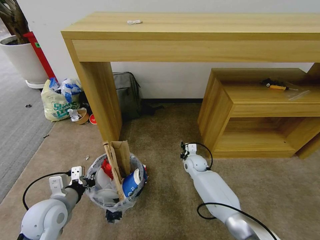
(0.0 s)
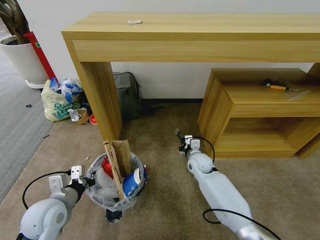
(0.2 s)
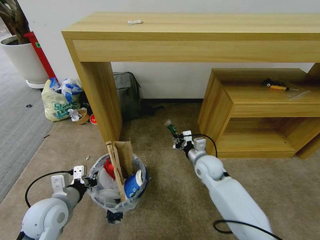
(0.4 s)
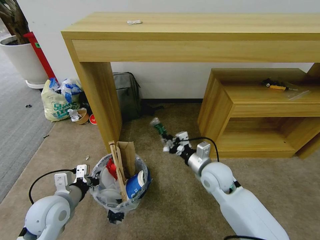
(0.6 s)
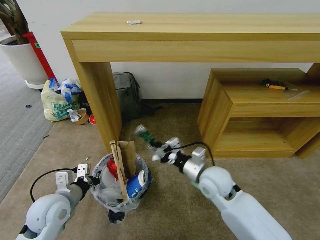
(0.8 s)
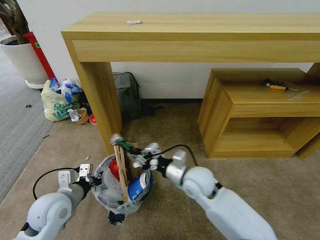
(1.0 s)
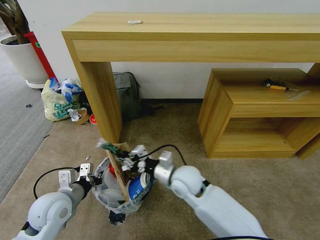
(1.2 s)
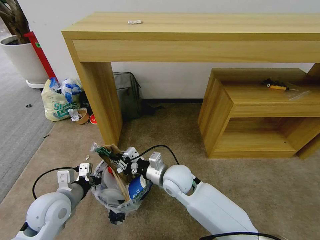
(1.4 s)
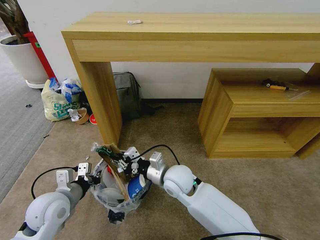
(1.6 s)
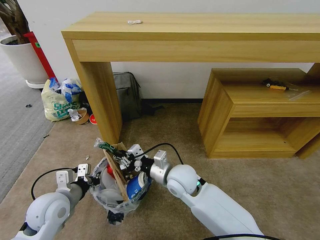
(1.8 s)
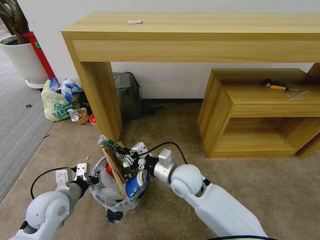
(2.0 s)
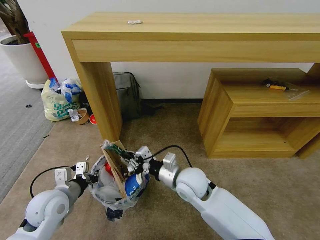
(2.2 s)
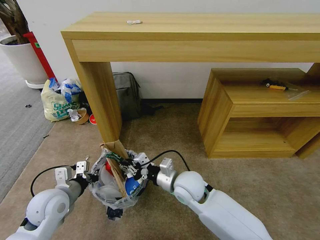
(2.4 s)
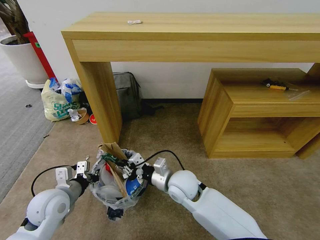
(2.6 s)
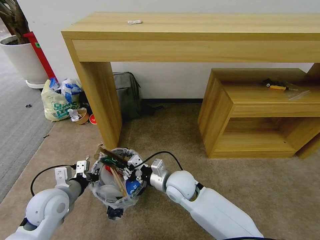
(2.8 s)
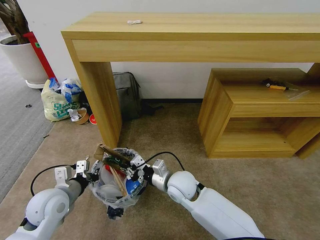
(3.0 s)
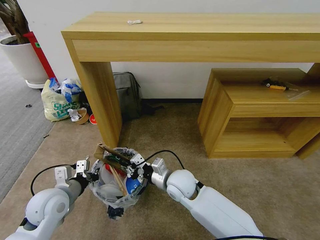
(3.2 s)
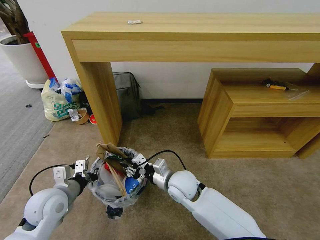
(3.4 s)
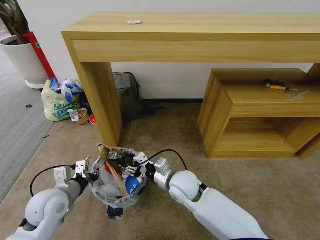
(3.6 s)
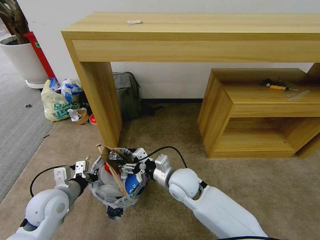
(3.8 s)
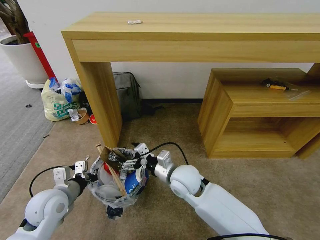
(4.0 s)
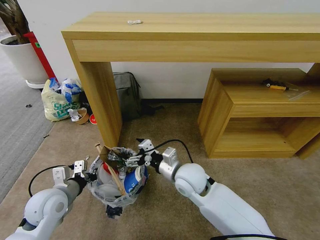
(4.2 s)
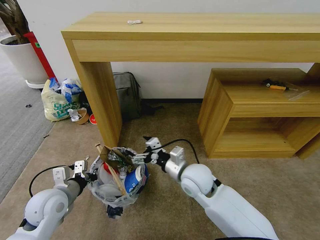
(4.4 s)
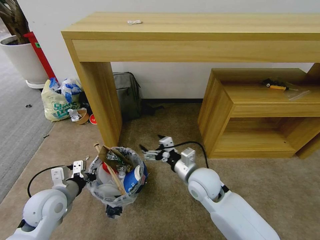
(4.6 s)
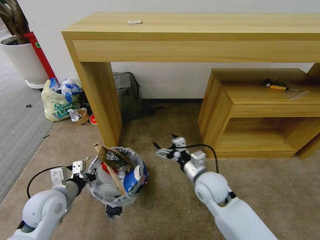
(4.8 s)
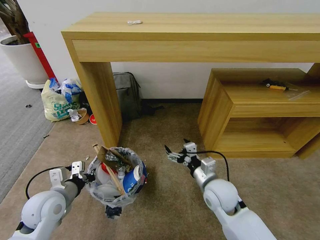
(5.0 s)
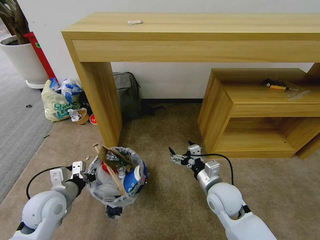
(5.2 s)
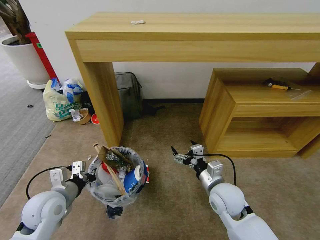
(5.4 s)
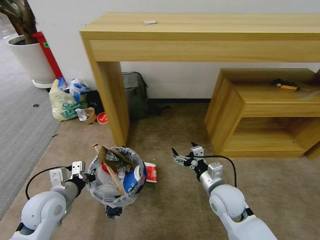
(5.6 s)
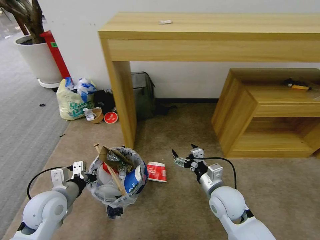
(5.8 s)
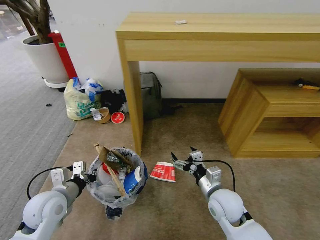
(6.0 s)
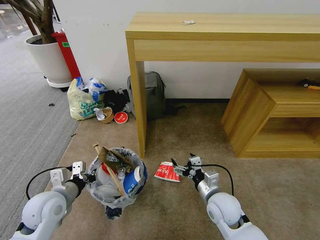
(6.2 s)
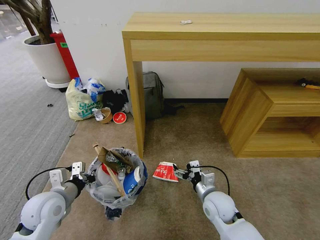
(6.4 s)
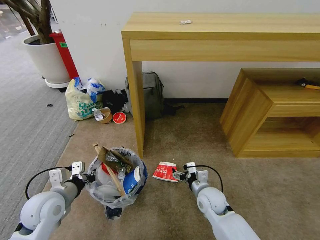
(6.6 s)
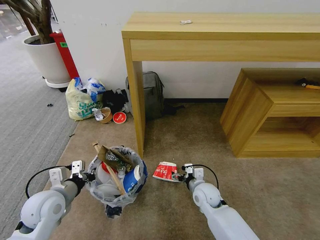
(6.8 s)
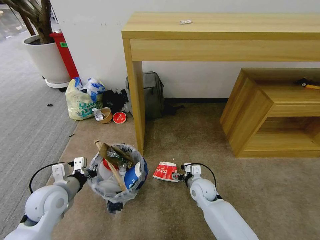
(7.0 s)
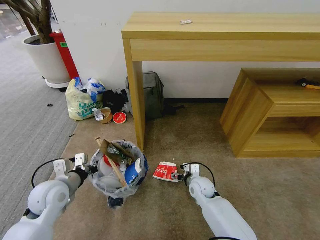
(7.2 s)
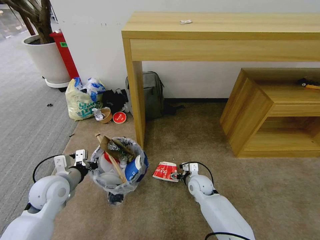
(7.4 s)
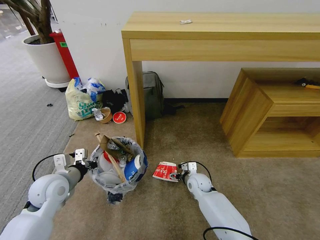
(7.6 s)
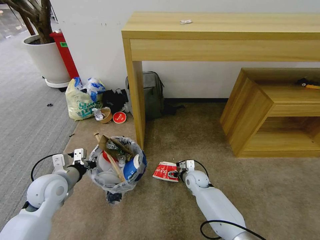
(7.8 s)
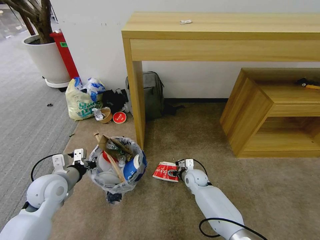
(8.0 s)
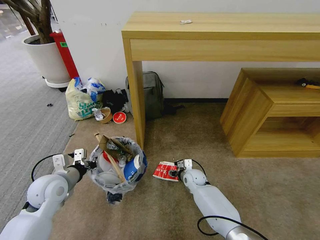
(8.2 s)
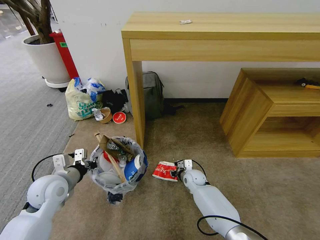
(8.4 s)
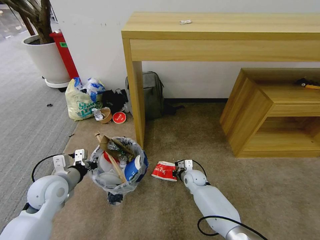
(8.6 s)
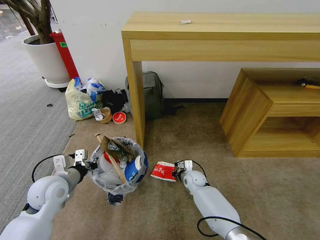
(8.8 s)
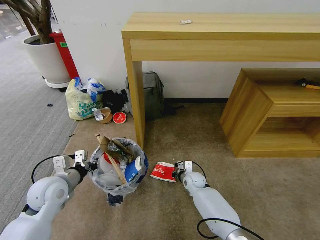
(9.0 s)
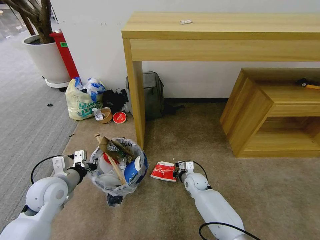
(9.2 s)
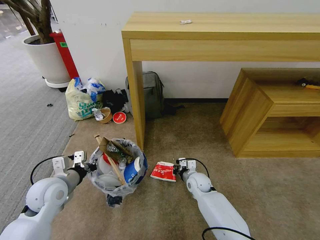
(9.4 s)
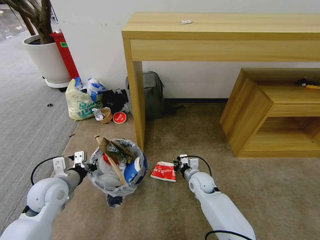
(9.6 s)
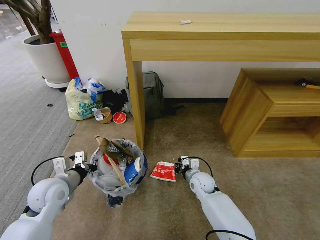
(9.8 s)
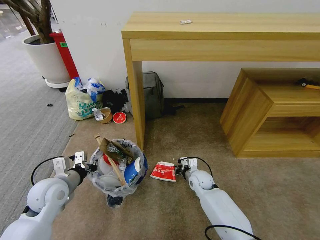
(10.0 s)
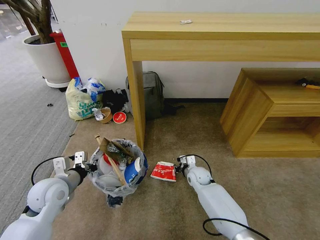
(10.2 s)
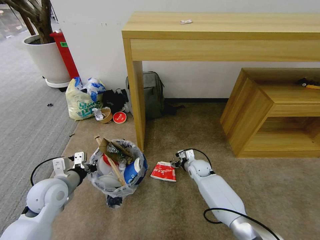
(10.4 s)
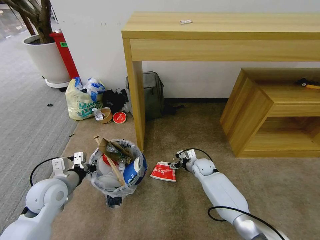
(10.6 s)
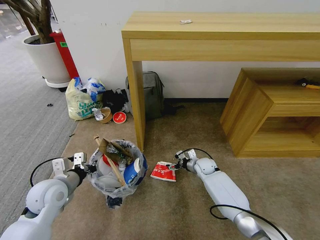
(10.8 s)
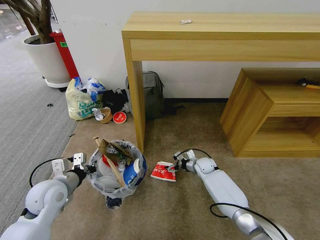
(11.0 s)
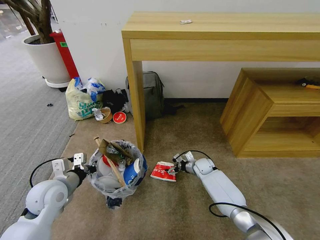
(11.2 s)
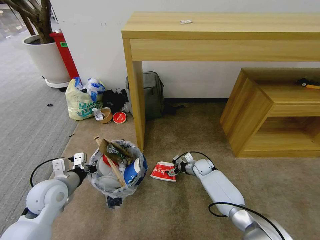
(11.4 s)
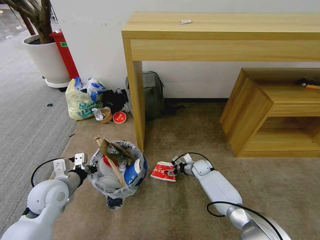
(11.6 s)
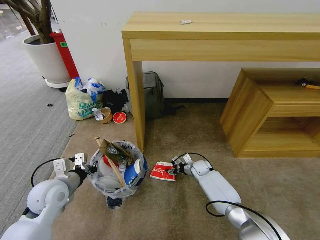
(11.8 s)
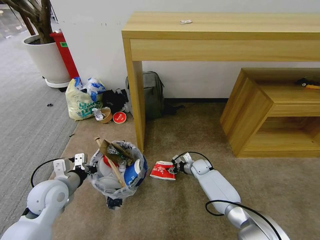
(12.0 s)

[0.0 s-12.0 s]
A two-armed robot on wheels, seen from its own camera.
Task of the whole recording: Pick up the trash bin and place the garbage on the floor into it.
0.0 to 1.6 s: The right gripper travels backward, upward and to the left by roughly 25 cm.
1.6 to 3.0 s: There are only small adjustments of the grippers.
3.0 to 4.4 s: The right gripper heads upward, covering some 5 cm, and opens up.
4.4 to 6.0 s: The right gripper moves to the right, downward and backward, some 10 cm.
6.0 to 7.6 s: The right gripper shifts approximately 20 cm downward and forward, while the left gripper changes place by some 5 cm.
7.6 to 9.0 s: The right gripper closes.
9.0 to 10.4 s: The right gripper moves approximately 5 cm, and opens.
10.4 to 12.0 s: The right gripper ends up about 5 cm from where it was, and opens and closes again.

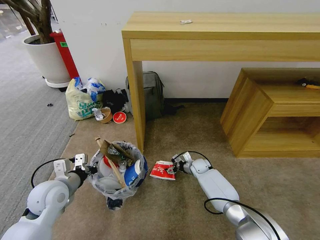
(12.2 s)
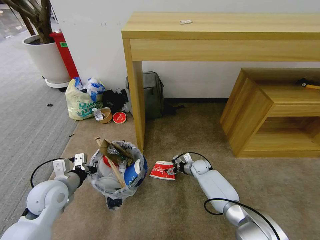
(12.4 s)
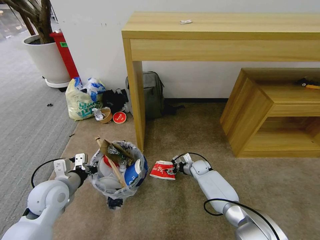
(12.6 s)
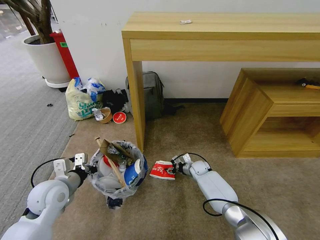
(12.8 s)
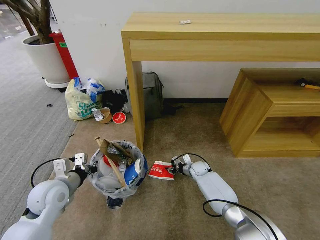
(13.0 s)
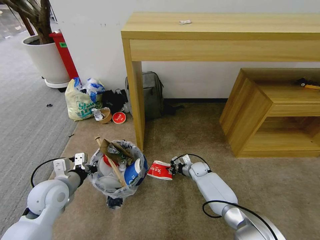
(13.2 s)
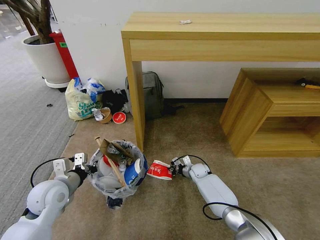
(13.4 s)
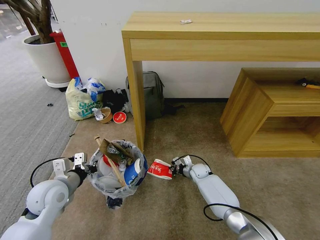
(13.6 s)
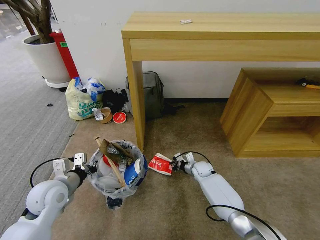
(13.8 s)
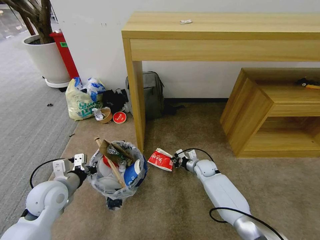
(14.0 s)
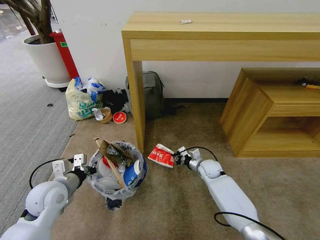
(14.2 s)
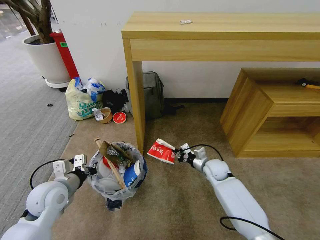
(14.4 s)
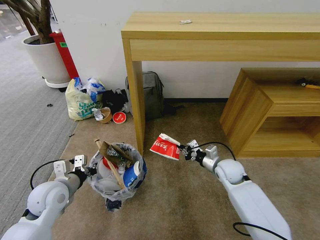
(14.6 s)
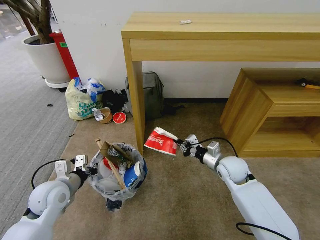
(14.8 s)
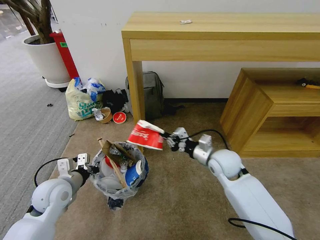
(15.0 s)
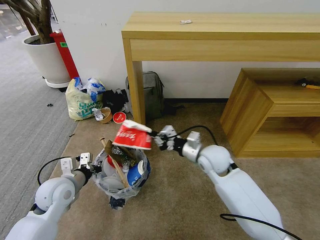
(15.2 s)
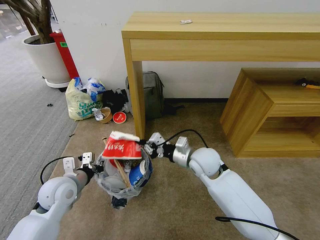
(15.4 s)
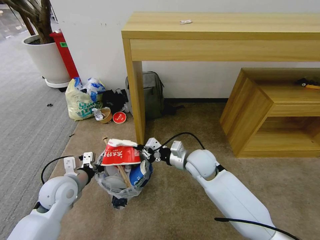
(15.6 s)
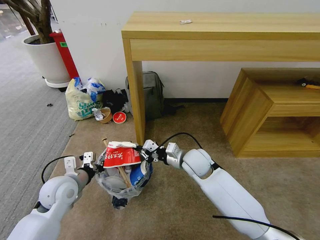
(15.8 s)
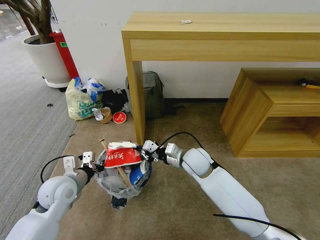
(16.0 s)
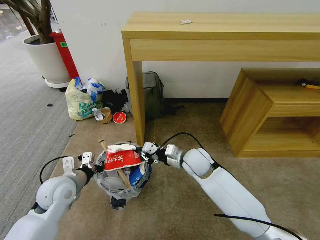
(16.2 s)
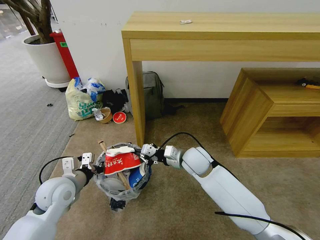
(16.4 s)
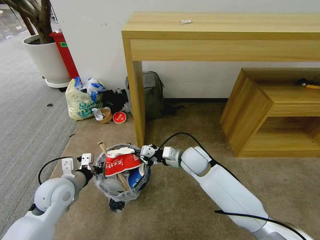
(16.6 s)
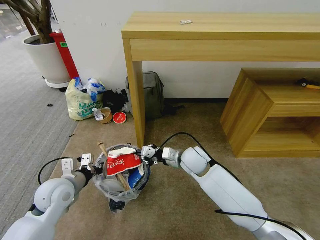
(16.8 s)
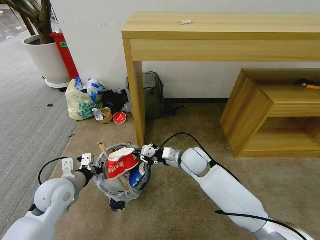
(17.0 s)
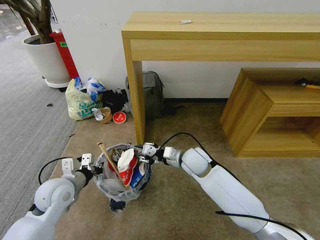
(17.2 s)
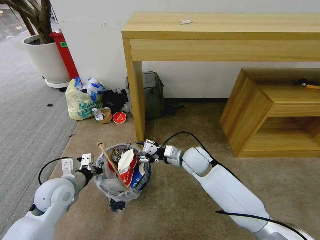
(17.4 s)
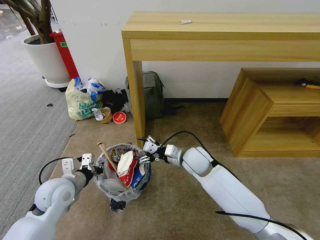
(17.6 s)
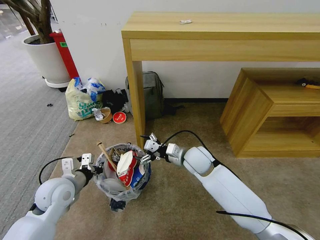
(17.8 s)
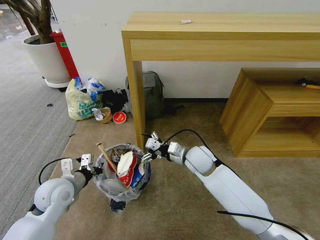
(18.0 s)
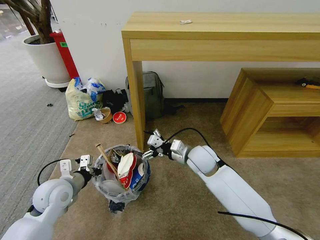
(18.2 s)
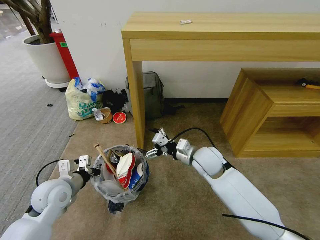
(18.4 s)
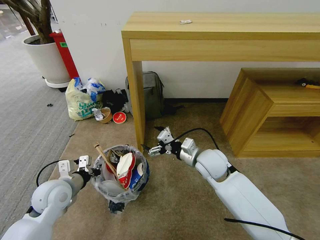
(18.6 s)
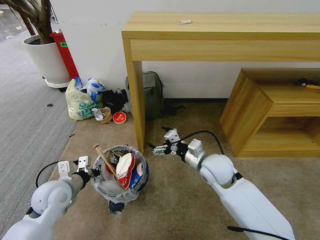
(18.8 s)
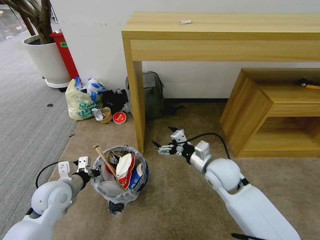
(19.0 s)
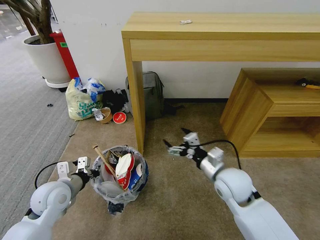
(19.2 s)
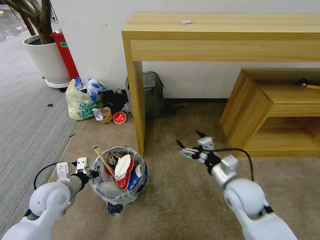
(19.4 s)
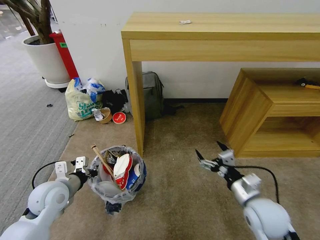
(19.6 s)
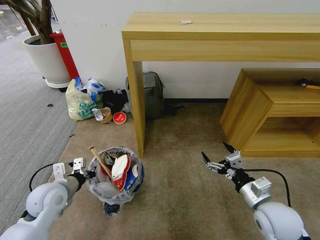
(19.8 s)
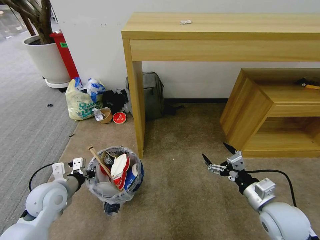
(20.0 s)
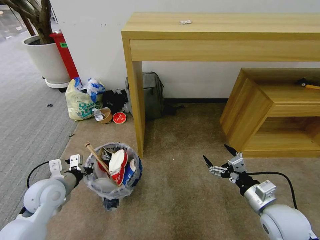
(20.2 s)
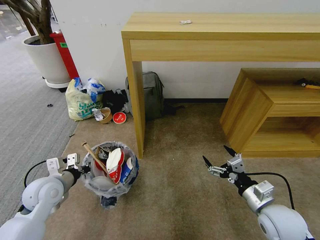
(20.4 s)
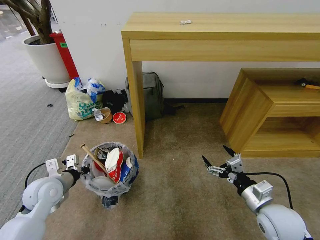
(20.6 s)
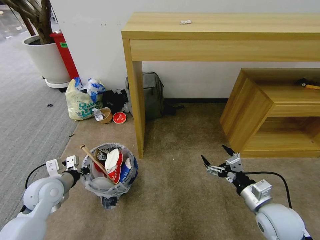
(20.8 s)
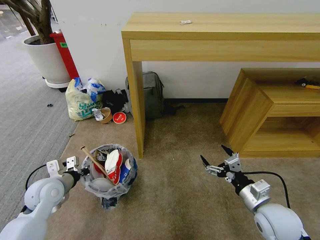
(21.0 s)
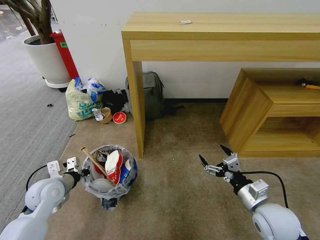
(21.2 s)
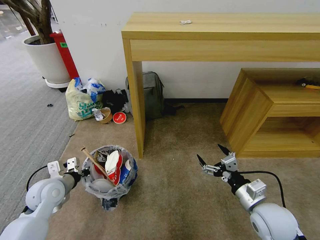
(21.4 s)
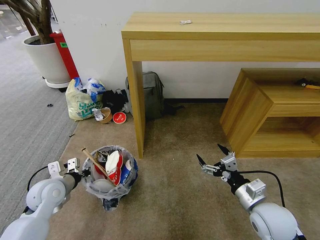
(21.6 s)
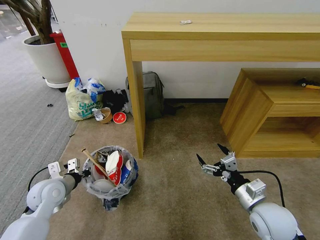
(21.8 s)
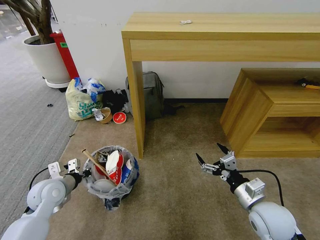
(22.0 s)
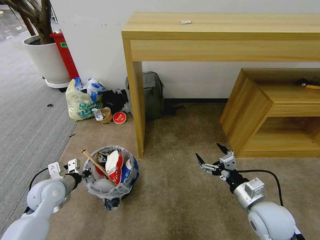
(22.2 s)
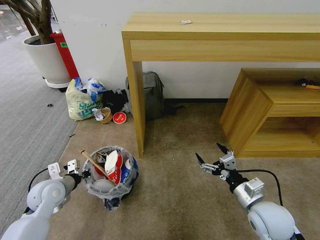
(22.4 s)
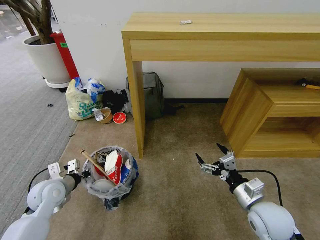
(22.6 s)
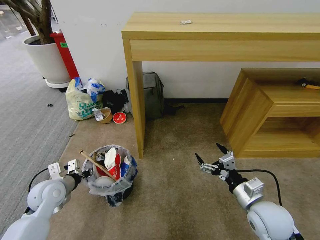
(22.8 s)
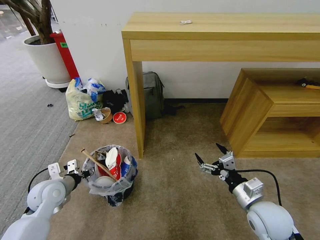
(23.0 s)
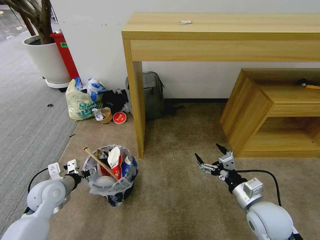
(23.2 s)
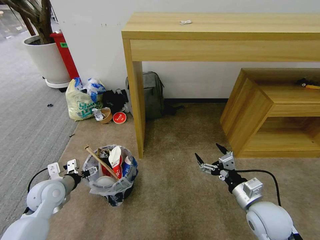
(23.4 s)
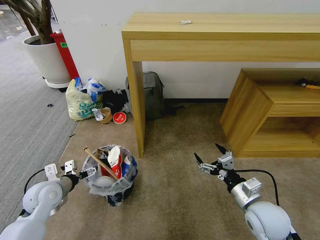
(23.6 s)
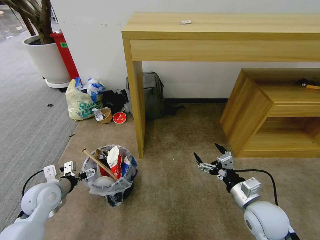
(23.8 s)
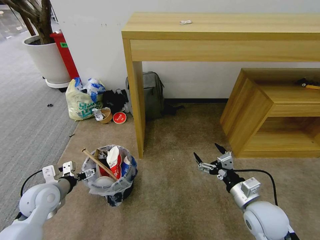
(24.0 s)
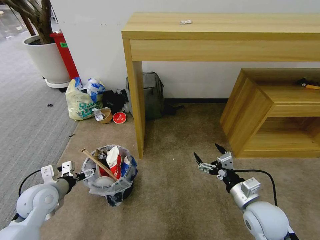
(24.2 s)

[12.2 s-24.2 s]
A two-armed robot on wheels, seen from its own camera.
Task of the whole recording: Pick up the trash bin and place the garbage on the floor into it.
12.2 to 13.8 s: The right gripper closes its fingers.
13.8 to 15.2 s: The right gripper heads upward, covering some 25 cm.
15.2 to 16.6 s: The right gripper shifts roughly 5 cm to the left.
16.6 to 18.2 s: The right gripper opens up.
18.2 to 19.8 s: The right gripper is displaced backward and to the right by roughly 25 cm.
19.8 to 22.6 s: The grippers stay close to where they were, moving slightly.
22.6 to 24.2 s: The left gripper opens.
